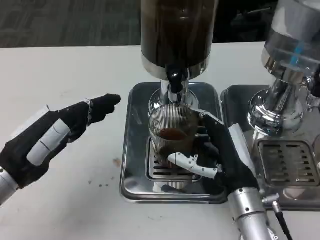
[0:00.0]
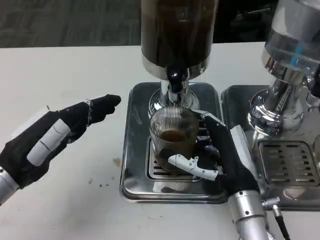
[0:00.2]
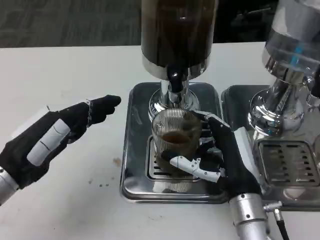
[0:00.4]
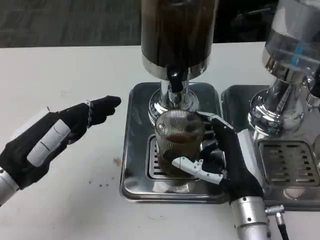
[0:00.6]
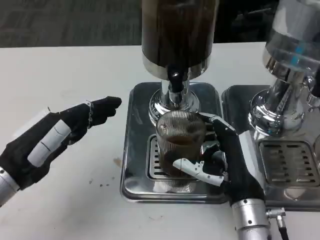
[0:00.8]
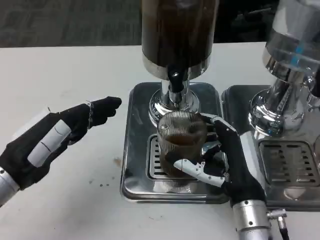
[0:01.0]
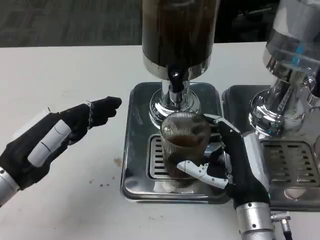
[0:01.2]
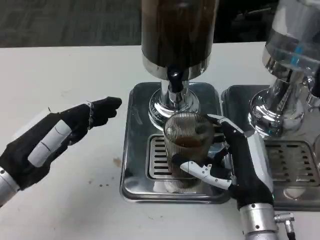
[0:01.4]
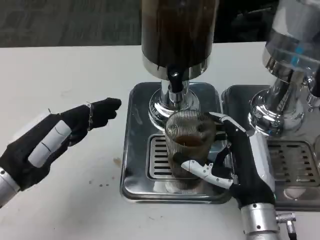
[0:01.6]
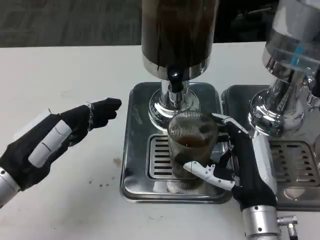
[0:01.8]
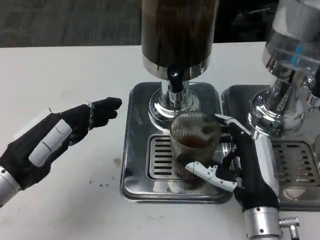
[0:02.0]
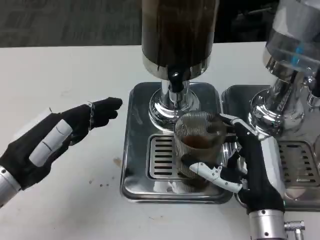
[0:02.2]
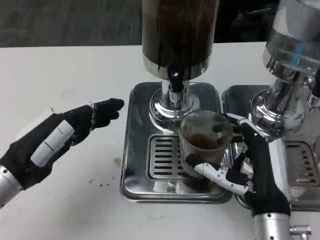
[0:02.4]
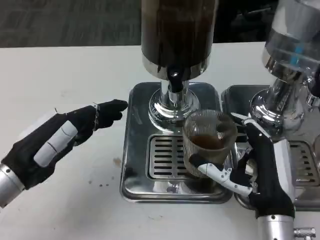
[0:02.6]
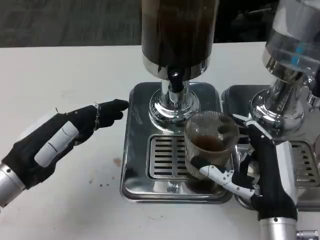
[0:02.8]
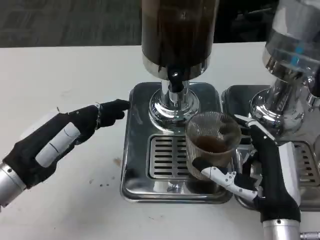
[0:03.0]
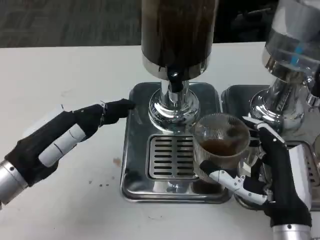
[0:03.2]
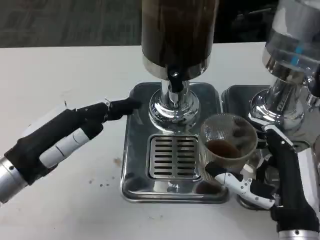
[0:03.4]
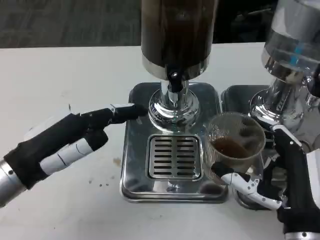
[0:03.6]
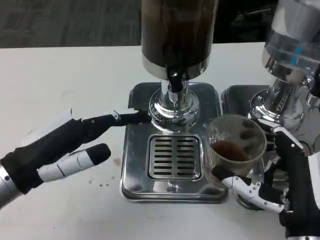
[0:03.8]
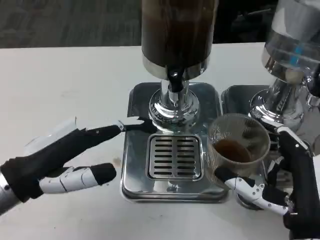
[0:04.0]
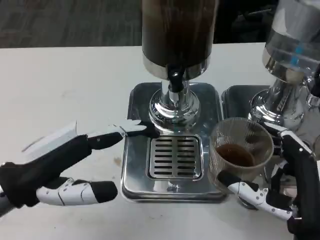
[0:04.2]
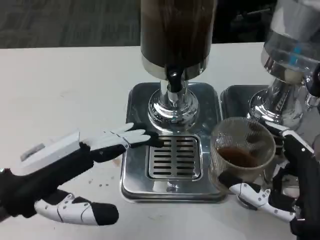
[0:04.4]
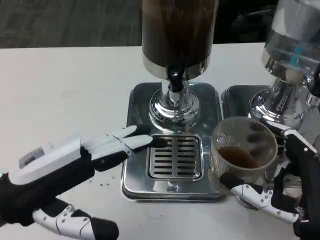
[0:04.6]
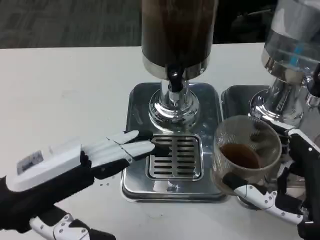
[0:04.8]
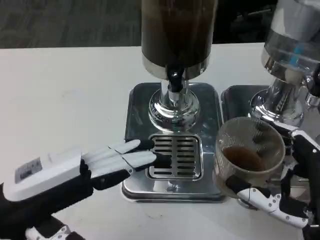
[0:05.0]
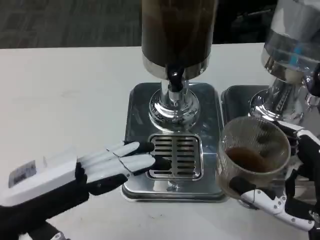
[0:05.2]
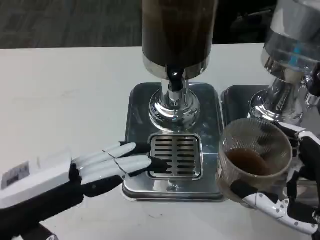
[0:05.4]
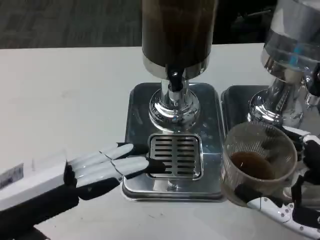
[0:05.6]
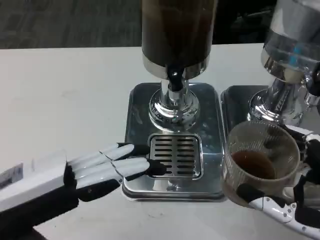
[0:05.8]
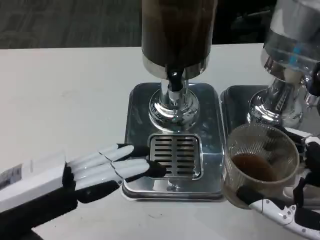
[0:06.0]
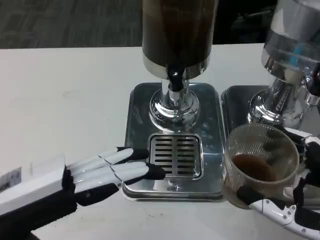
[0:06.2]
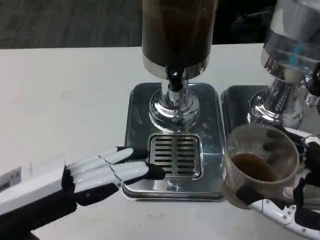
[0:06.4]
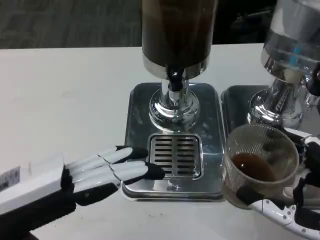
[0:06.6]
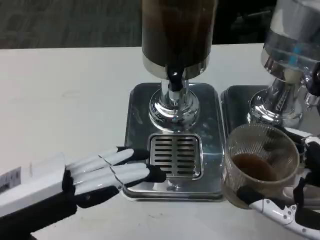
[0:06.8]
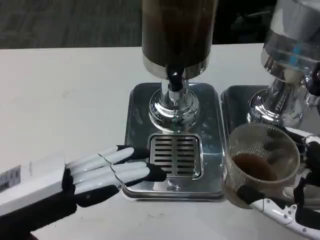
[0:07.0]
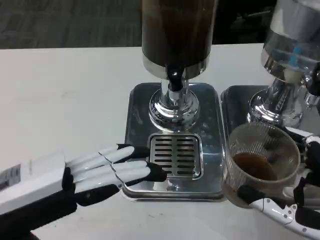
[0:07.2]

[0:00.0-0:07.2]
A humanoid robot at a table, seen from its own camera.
Task of the whole recording: Grasp the cup under the faucet to collect the drink, then remove the cup.
0:00.0 to 0:02.8: The hands move only a little.
0:02.8 to 0:04.4: The right hand changes place by about 5 cm. The left hand ends up roughly 5 cm from where it was.
0:05.8 to 0:07.2: The two hands keep their place.

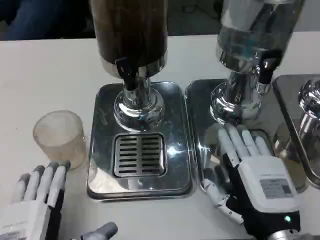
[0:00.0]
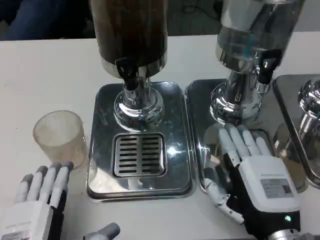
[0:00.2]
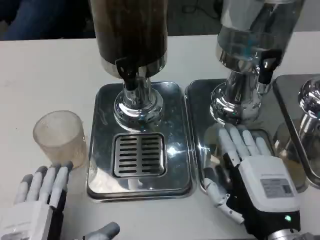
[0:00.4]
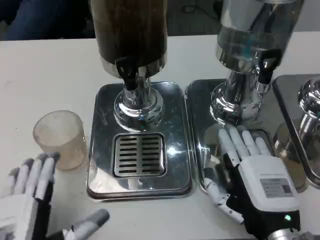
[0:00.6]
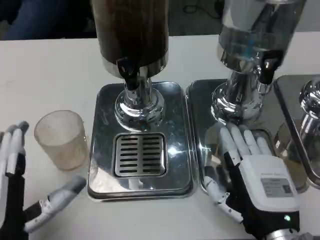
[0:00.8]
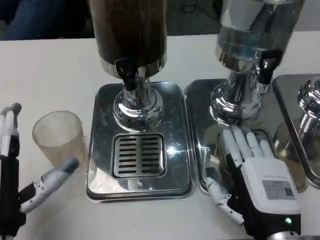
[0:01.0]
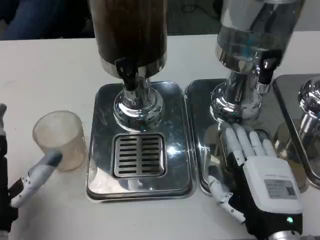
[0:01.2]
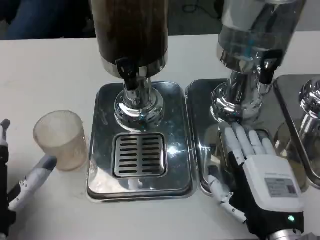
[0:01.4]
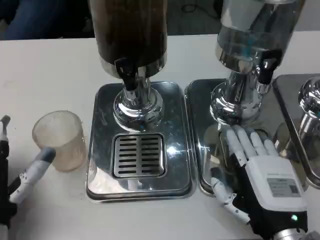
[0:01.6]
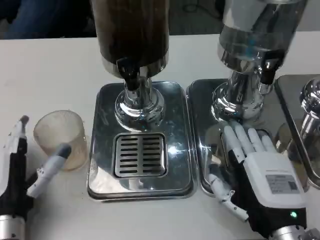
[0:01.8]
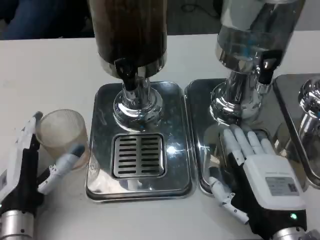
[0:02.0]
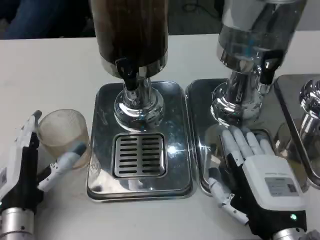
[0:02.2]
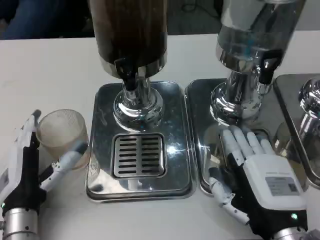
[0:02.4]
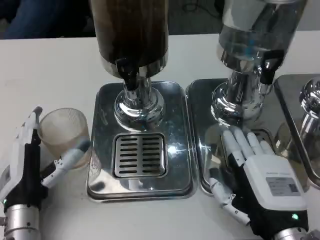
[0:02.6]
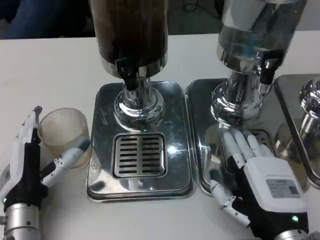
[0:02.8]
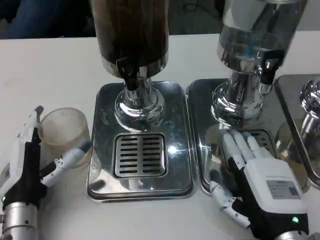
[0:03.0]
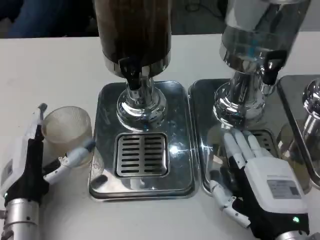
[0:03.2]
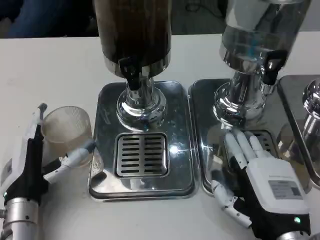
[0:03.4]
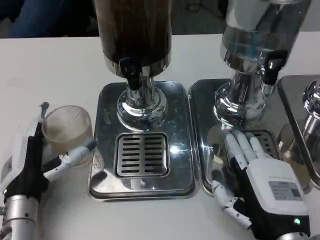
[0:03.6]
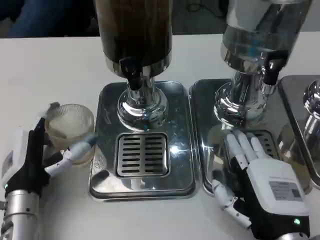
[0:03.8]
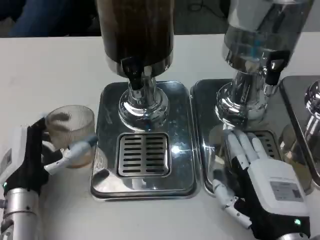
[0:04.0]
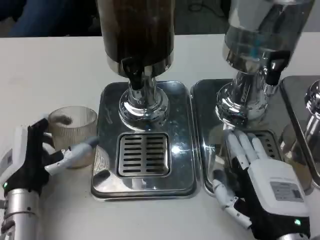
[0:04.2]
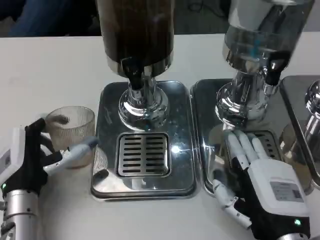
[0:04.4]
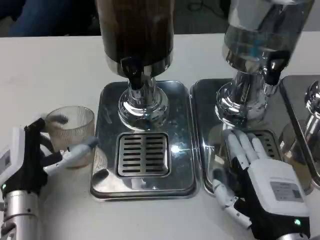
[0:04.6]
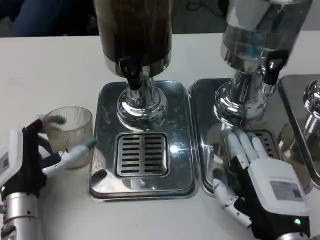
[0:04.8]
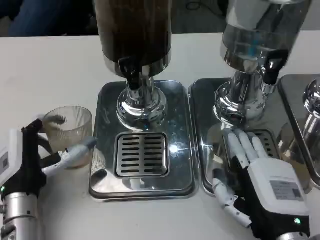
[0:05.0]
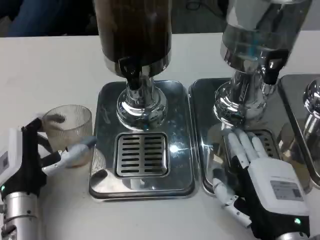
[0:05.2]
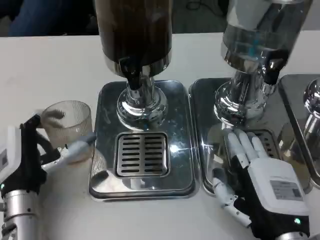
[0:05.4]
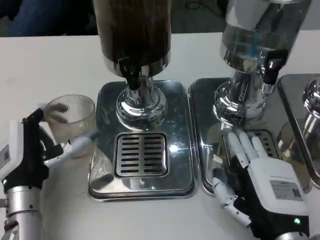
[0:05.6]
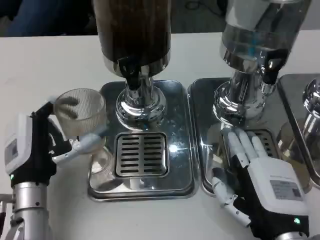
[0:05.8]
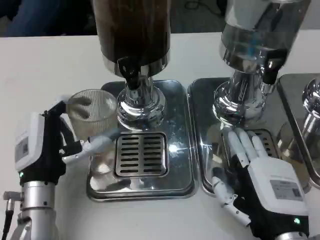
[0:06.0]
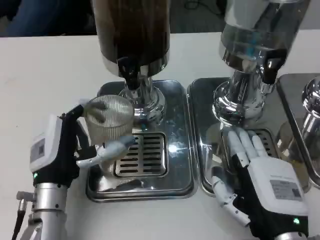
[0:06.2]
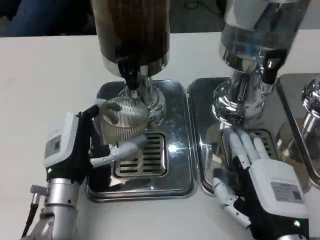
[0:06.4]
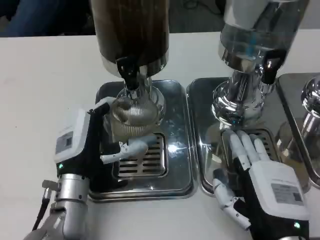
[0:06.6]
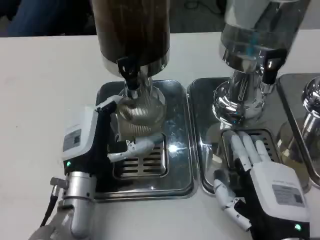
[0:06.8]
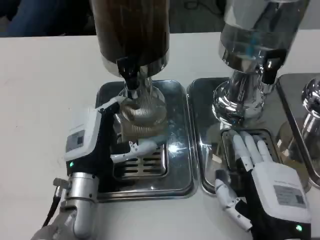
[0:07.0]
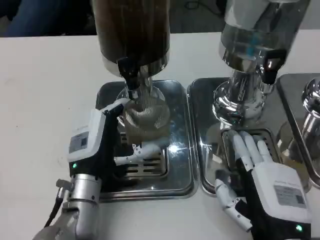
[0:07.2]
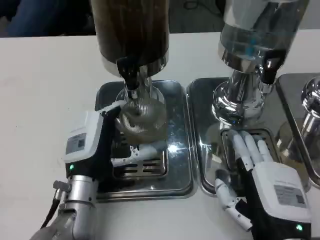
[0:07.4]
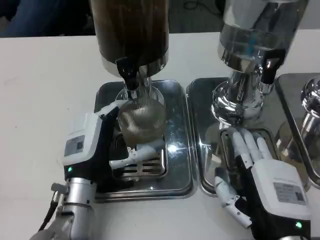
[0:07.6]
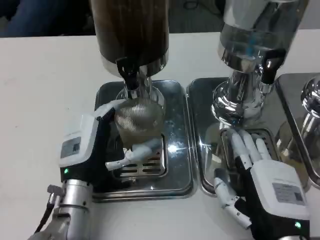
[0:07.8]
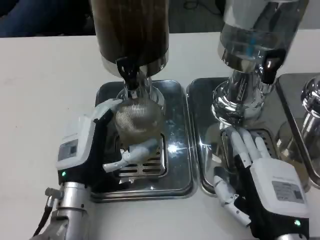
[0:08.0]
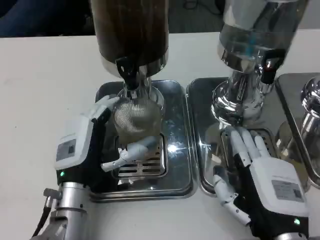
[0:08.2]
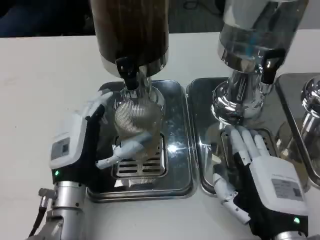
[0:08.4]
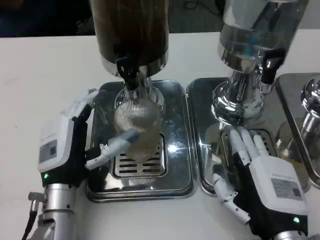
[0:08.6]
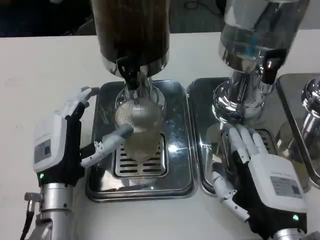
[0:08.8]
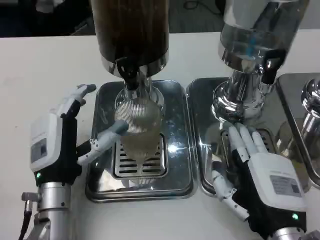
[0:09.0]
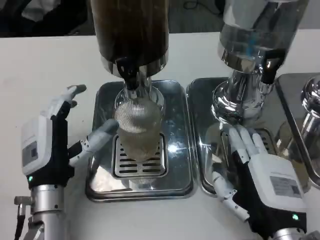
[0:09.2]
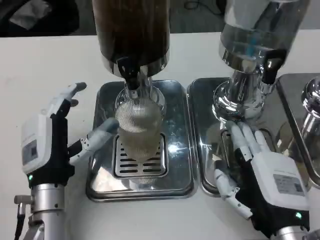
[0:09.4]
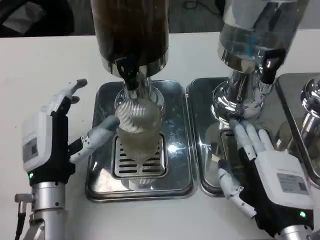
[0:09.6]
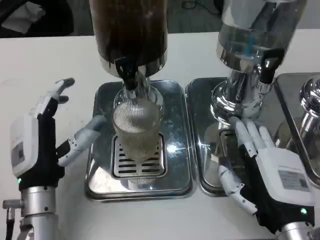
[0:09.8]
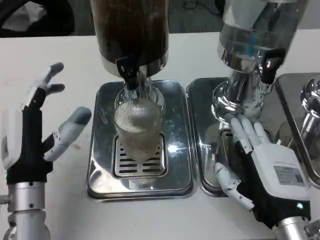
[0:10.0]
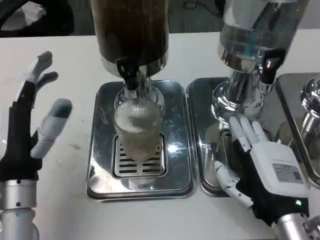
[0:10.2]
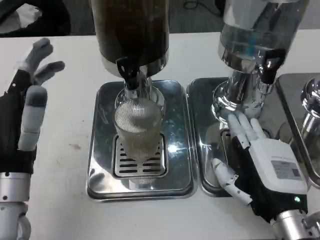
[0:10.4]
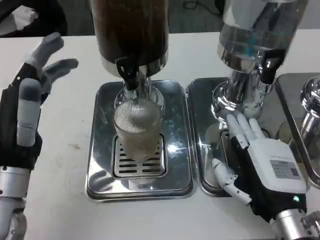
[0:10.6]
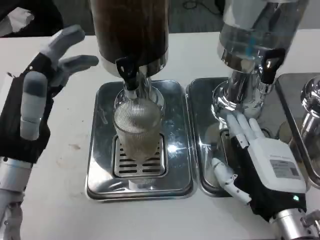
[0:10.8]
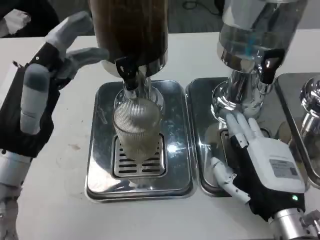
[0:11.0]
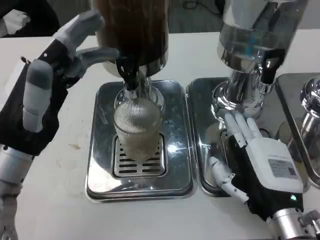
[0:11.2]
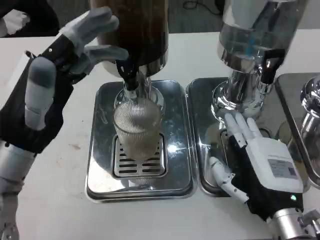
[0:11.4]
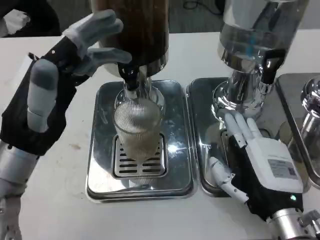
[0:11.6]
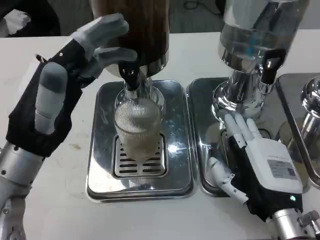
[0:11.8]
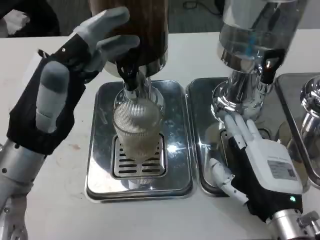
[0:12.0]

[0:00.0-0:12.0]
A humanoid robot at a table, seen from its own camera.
Task of the whole recording: Grasp the cup under the faucet to collect the drink, then remove the cup.
0:00.0 to 0:01.6: The left hand heads forward and to the left, covering about 10 cm.
0:09.0 to 0:10.4: The left hand heads upward, covering roughly 5 cm.
0:10.4 to 0:12.0: The left hand heads upward, covering roughly 5 cm.

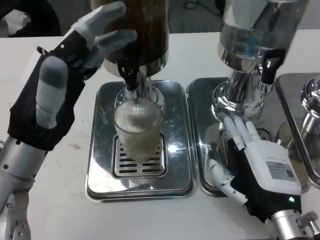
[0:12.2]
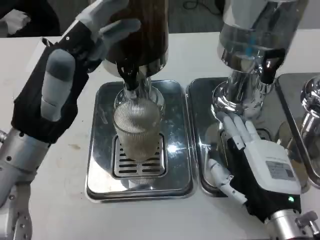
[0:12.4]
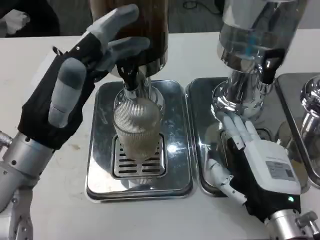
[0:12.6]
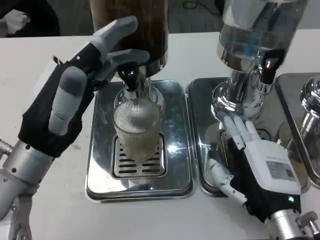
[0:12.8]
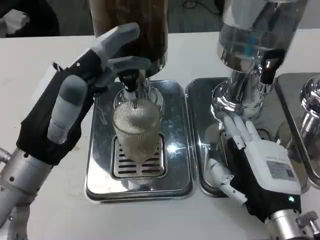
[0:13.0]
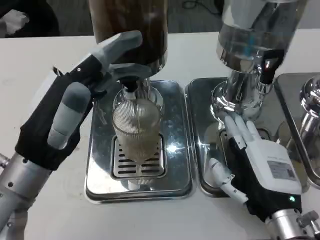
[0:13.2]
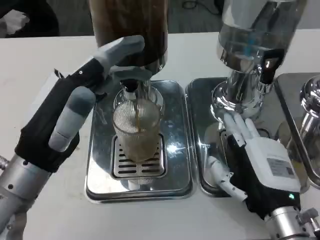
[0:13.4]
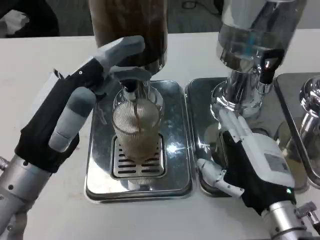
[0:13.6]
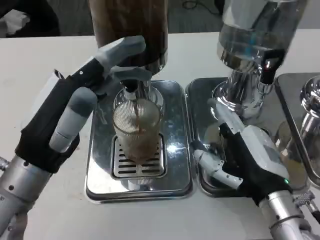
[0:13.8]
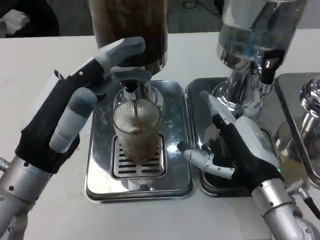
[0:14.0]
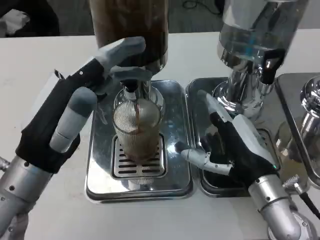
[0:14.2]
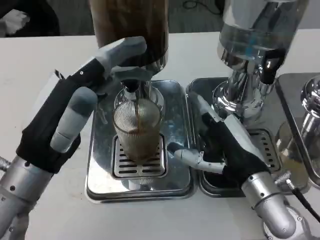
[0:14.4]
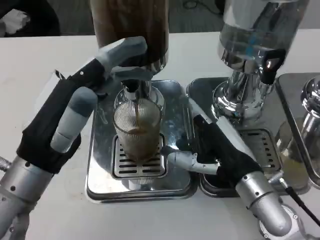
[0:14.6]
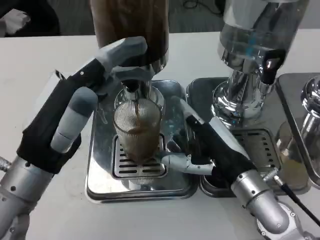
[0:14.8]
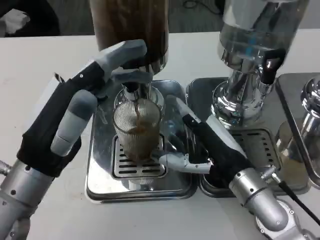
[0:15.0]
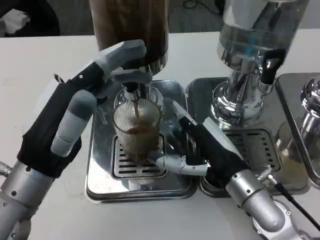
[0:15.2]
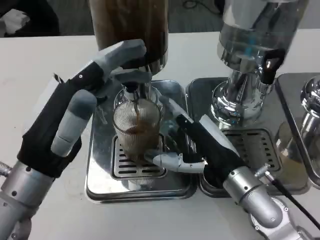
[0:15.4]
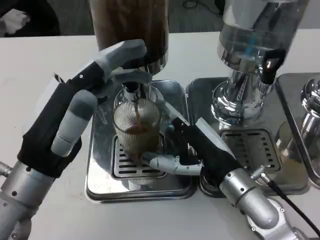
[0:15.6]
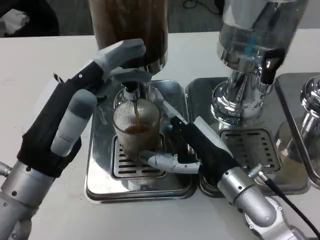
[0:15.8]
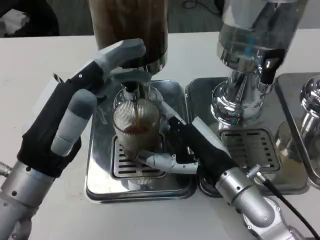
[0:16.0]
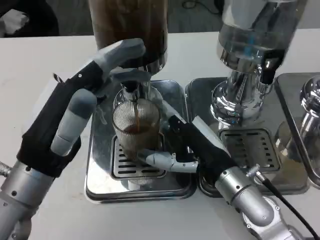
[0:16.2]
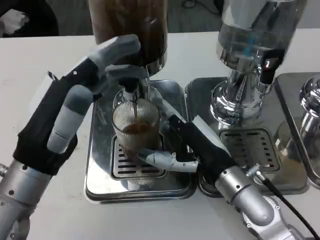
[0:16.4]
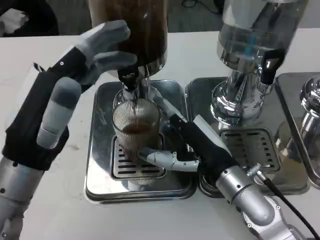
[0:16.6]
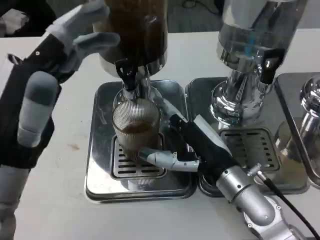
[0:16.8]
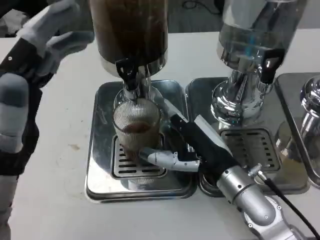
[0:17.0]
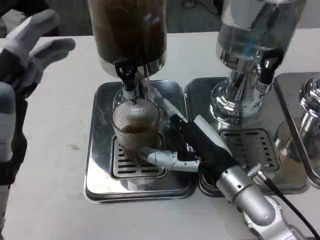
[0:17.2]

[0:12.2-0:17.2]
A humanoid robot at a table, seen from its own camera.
Task of the whole recording: Grasp the cup under the faucet to collect the drink, then remove the cup.
0:13.8 to 0:15.6: The right hand is displaced forward by some 5 cm.
